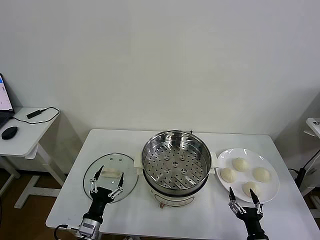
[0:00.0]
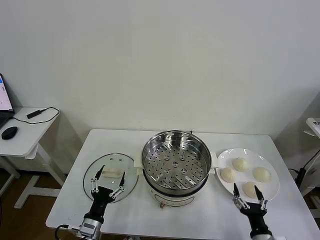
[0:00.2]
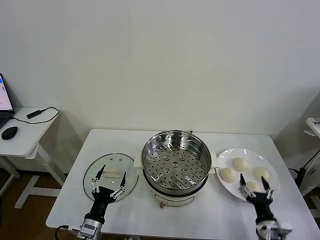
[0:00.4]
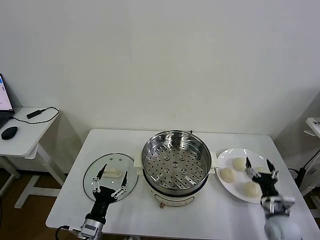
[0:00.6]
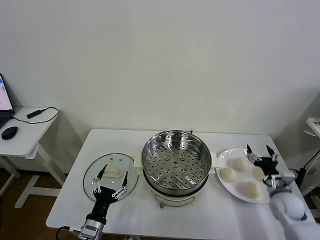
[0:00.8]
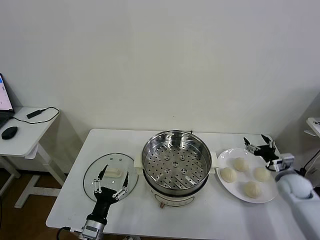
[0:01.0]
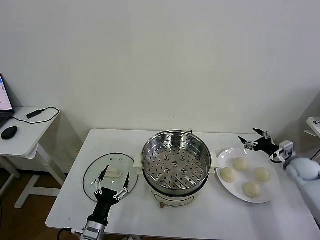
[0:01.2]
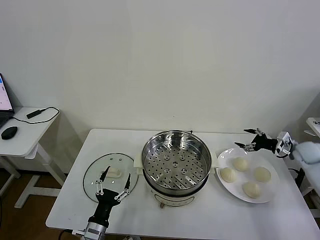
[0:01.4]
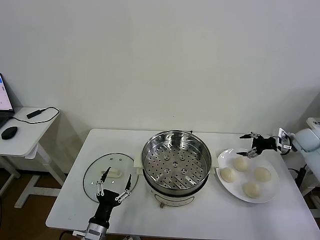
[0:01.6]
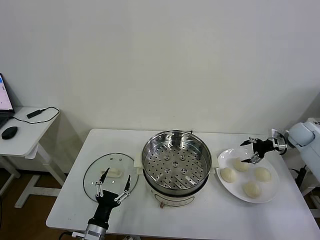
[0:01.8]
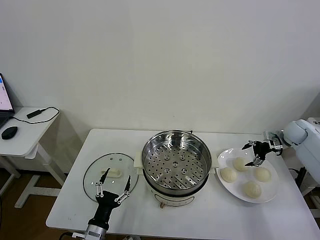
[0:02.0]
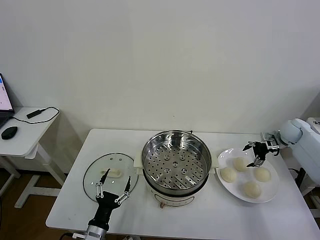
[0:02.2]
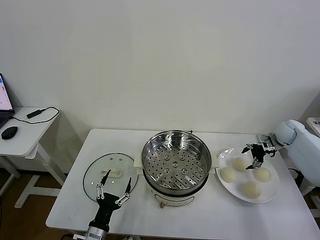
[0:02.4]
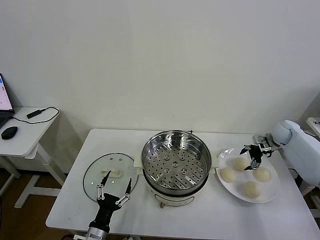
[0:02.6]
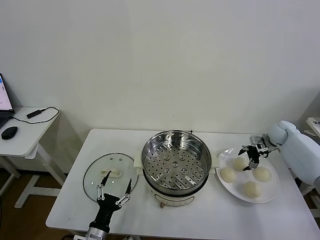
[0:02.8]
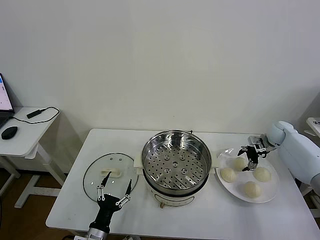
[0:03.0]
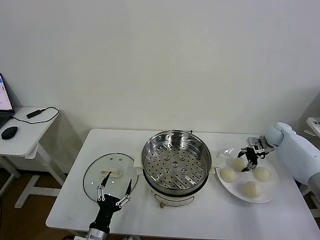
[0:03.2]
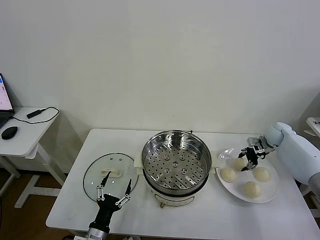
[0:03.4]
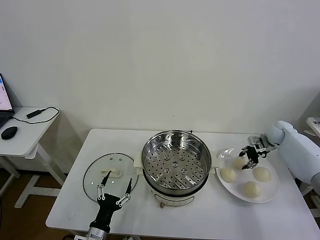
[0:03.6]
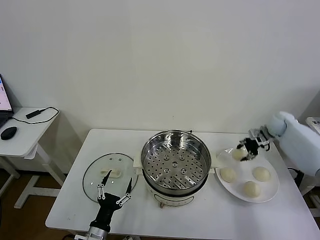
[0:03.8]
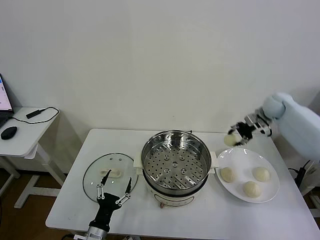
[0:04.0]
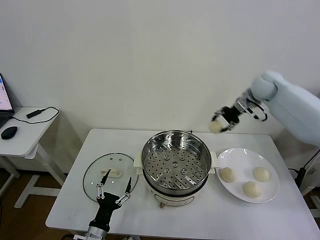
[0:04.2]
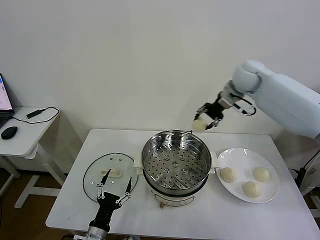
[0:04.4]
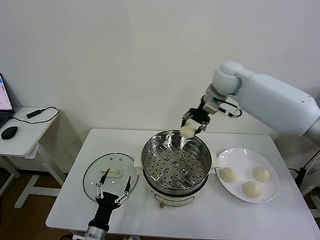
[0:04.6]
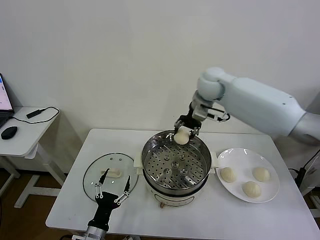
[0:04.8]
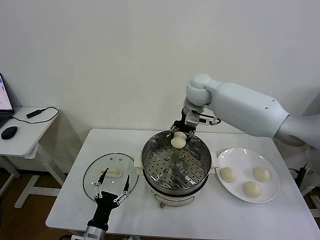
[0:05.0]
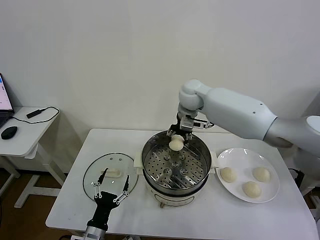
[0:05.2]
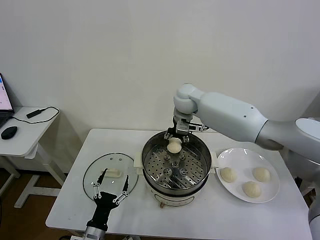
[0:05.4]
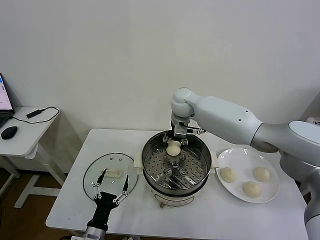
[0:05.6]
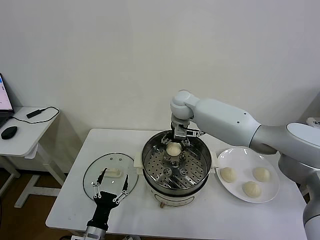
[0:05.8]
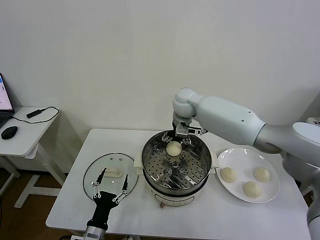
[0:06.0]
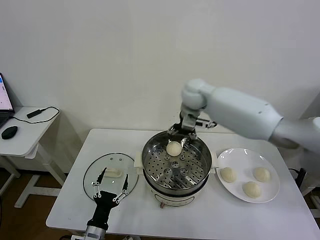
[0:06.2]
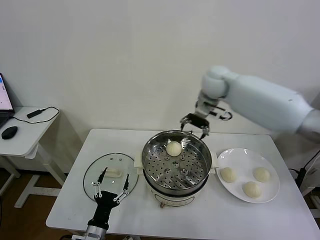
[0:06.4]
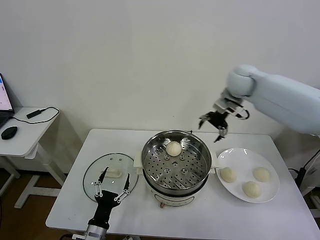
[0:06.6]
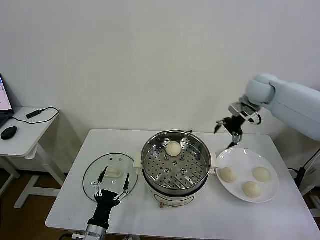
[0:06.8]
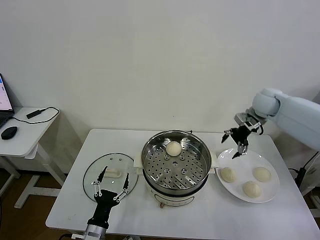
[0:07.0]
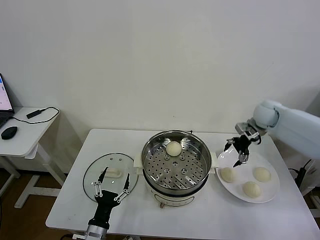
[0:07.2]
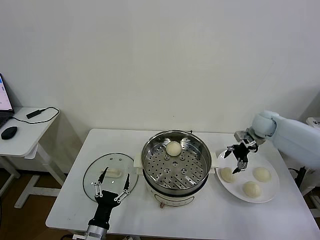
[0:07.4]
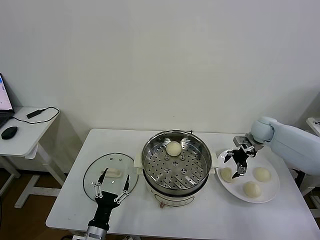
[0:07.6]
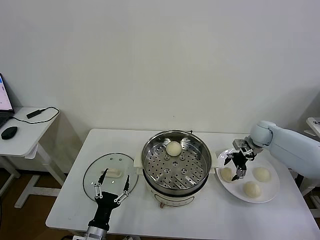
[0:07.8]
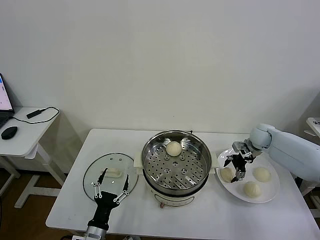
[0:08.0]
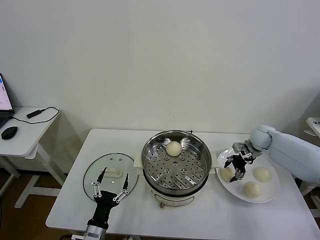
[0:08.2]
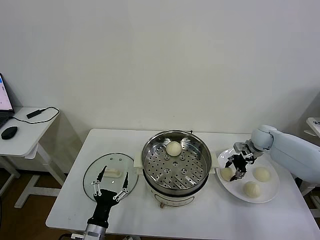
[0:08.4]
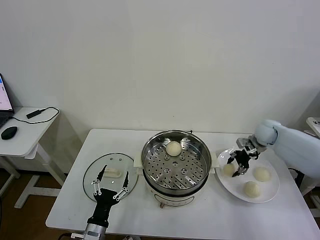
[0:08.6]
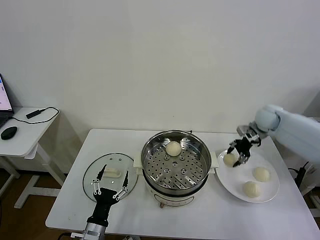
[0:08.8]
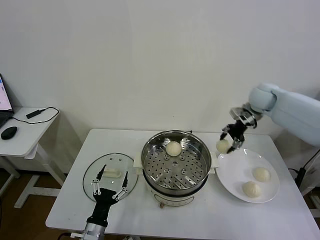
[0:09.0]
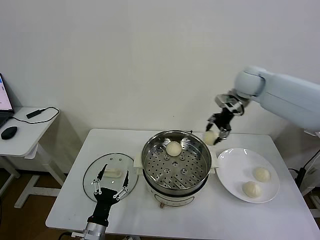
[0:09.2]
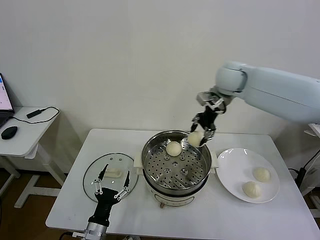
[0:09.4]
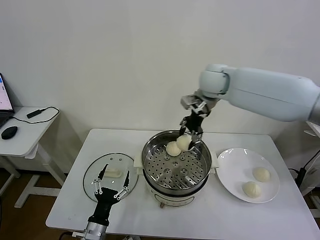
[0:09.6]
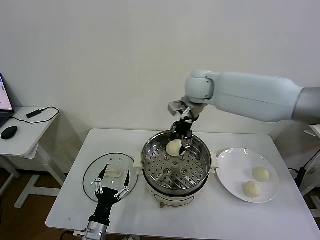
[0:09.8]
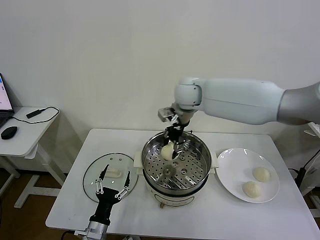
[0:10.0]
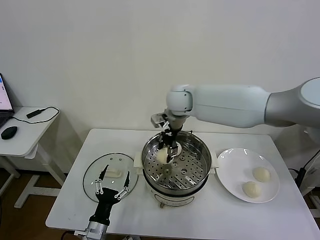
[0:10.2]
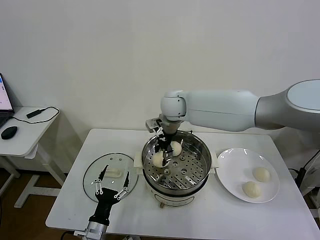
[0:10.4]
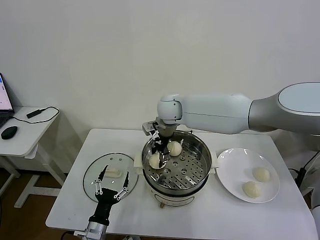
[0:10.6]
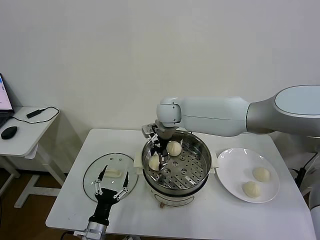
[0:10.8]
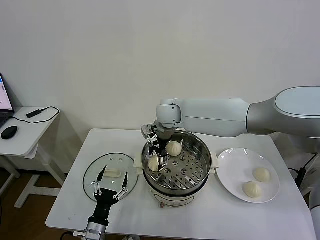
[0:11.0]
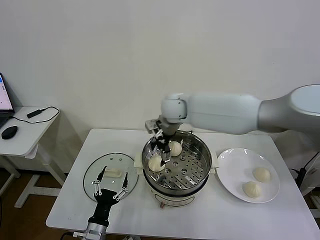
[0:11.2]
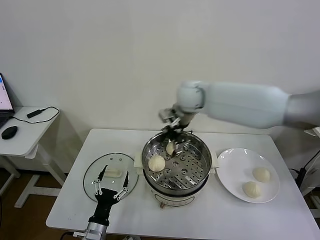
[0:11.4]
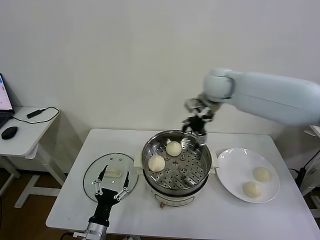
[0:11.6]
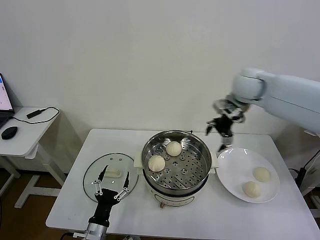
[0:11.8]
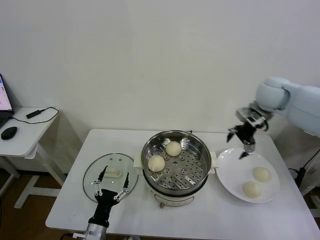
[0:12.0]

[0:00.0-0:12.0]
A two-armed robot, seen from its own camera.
Task of the whole recording: take steamed baozi put them in steamer then cover it.
Step, 0:00.0 to 0:03.4: Grasp the baozi in the plate with right gripper.
Step, 0:03.6 to 0:05.8: Place the baozi on the steamer with right gripper.
Step, 0:06.0 to 0:08.4: Grasp the baozi in the plate with right gripper.
Step, 0:08.6 to 0:10.8: Place the baozi on the steamer with right gripper.
0:01.6 to 0:03.0: The right gripper shifts about 10 cm to the left and forward.
0:03.0 to 0:04.4: The right gripper shifts about 35 cm upward and to the left, and closes its fingers.
0:04.4 to 0:06.0: The right gripper shifts roughly 15 cm to the left and downward, and opens up.
0:06.0 to 0:07.6: The right gripper moves to the right and downward, approximately 35 cm.
0:07.6 to 0:09.0: The right gripper heads upward and to the left, covering roughly 15 cm, and closes.
0:09.0 to 0:10.4: The right gripper goes about 30 cm to the left.
0:10.4 to 0:12.0: The right gripper heads to the right, covering some 30 cm, and opens up.

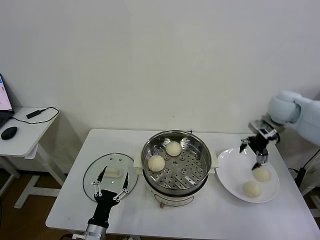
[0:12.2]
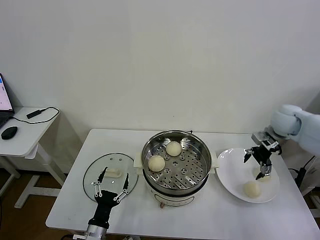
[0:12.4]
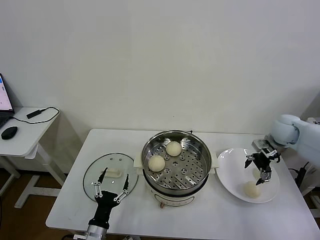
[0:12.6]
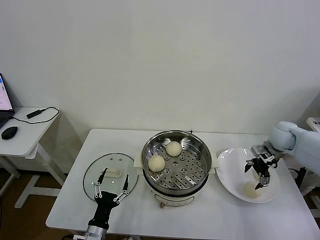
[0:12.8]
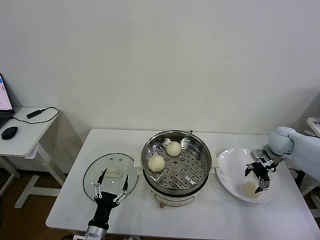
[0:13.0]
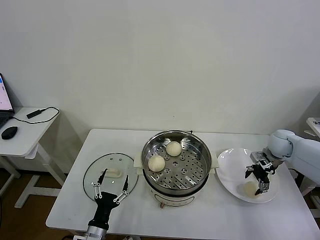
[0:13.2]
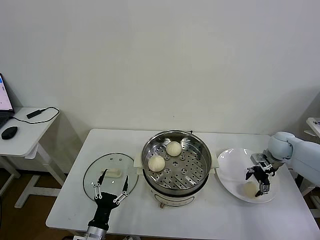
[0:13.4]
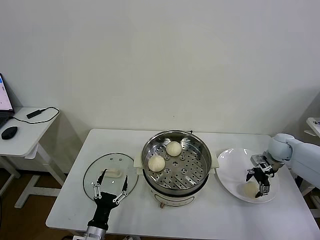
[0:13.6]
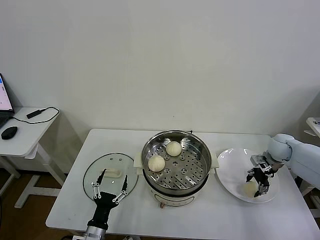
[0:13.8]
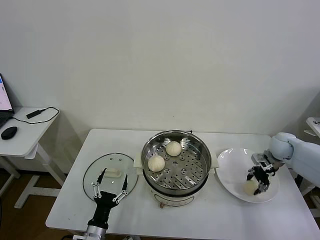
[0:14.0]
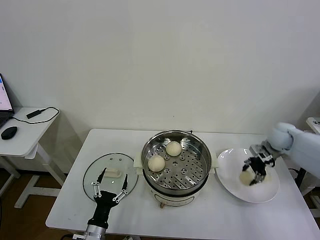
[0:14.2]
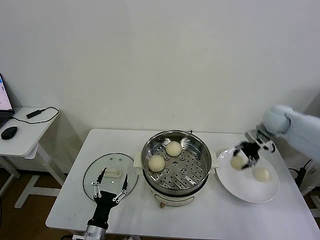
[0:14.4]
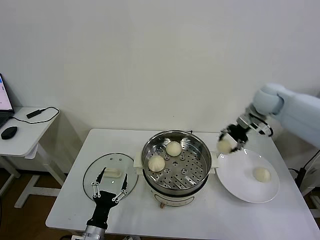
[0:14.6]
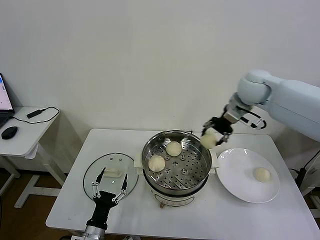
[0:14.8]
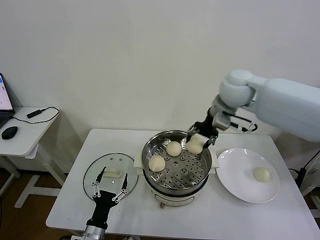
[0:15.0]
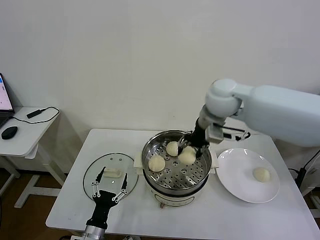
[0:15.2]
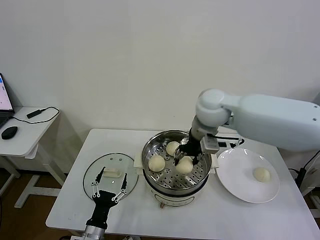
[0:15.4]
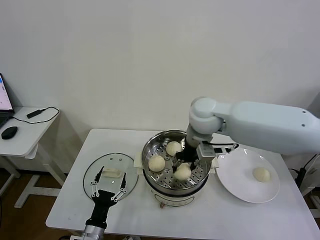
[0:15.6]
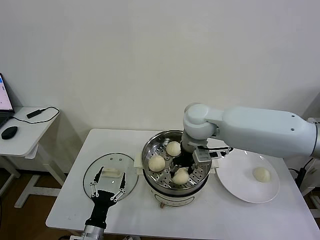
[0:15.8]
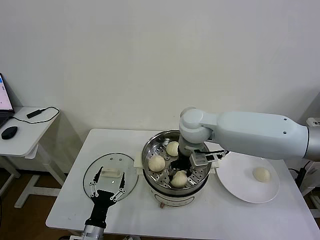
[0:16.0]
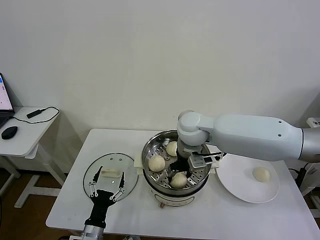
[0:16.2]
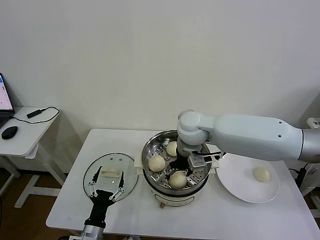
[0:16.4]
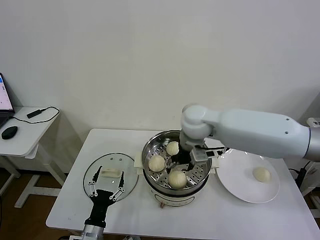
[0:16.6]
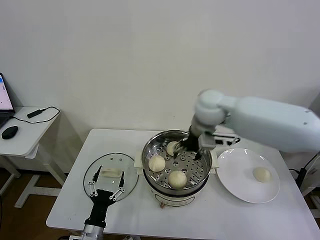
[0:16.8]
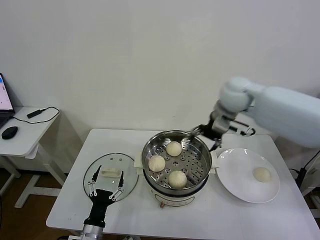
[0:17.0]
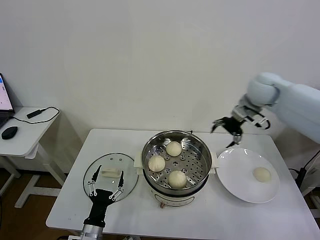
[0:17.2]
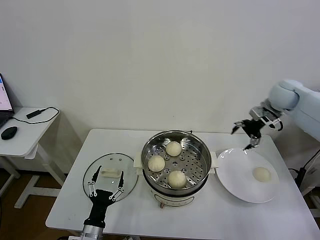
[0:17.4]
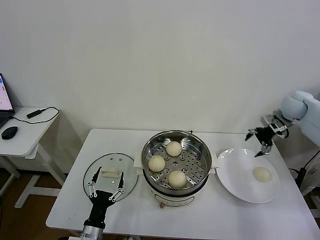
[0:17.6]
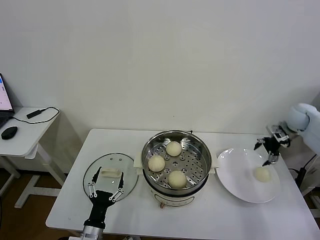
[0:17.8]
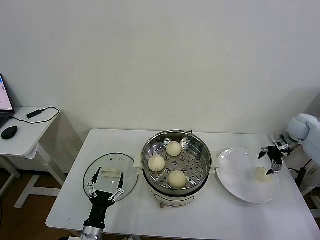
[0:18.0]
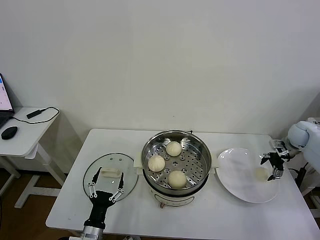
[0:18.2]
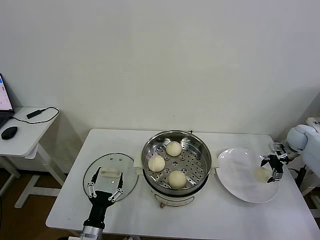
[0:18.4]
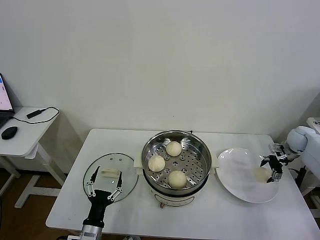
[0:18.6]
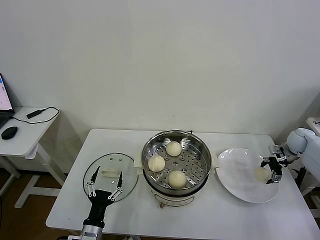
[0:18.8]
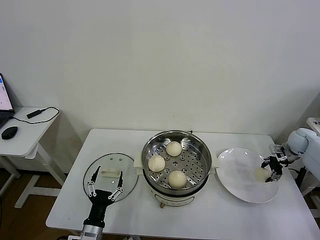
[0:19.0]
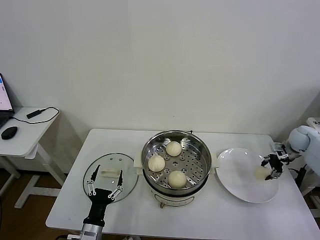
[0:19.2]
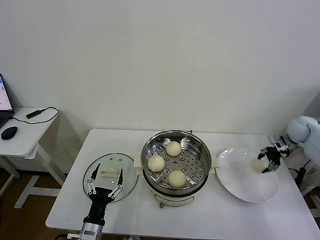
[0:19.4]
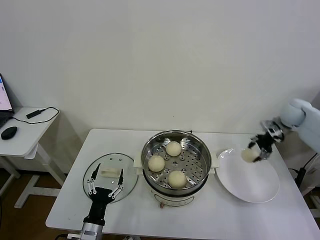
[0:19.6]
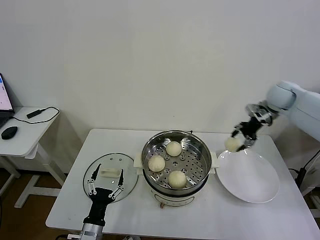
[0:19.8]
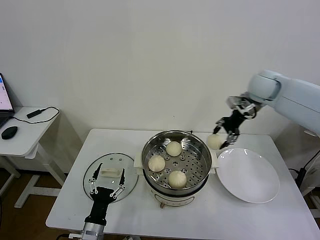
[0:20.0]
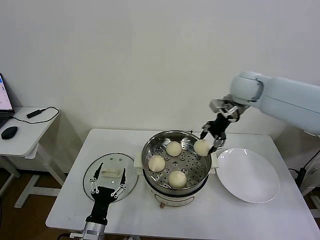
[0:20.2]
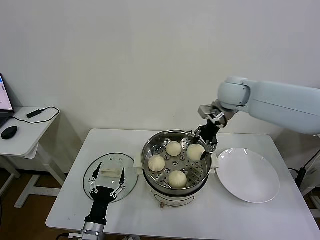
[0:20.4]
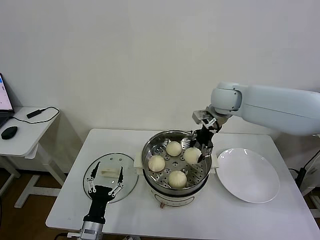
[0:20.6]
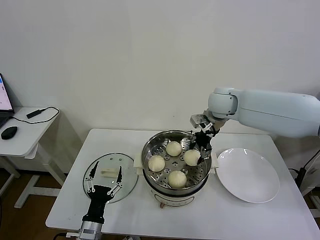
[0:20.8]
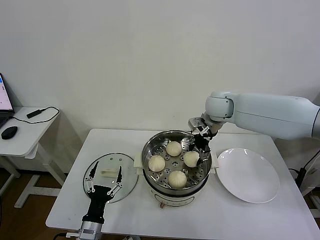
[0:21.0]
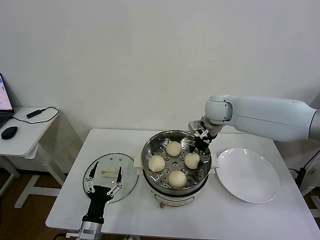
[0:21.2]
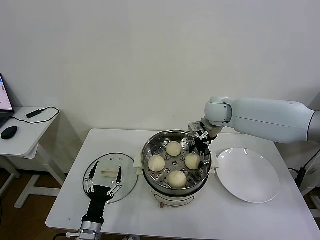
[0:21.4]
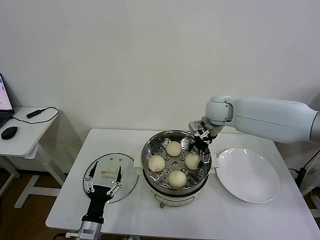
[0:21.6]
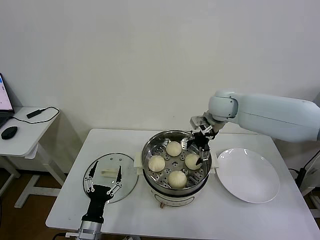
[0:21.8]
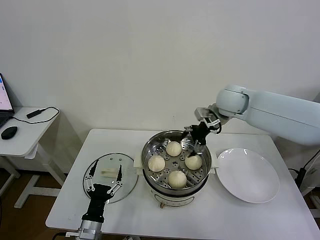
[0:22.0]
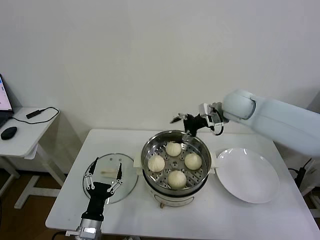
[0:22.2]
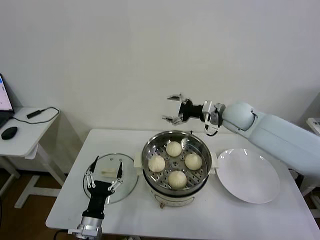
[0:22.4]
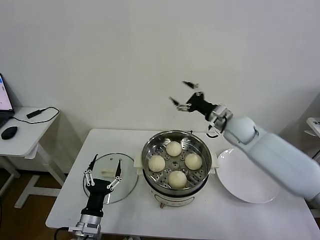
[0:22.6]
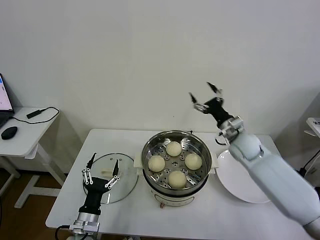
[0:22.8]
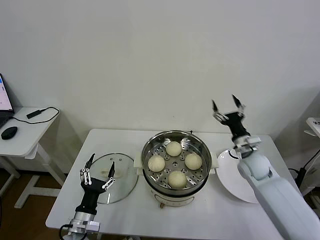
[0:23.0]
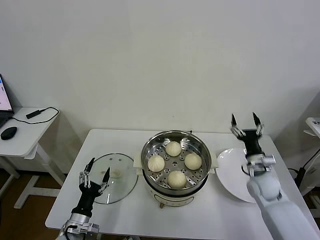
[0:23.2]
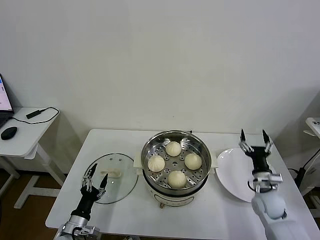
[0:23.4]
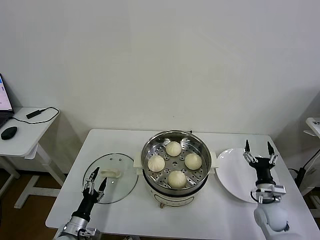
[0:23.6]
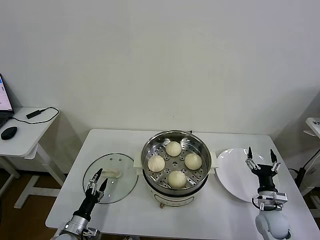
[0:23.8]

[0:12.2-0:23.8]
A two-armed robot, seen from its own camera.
Task of the whole recording: take steamed baozi put them in steamer then cover it.
Step, 0:12.2 to 0:14.0: Grasp the baozi in the plate with right gripper.
Step, 0:14.2 to 0:16.4: Place the baozi on the steamer with right gripper.
Step, 0:16.6 to 0:19.0: Grasp the baozi in the plate with right gripper.
Step, 0:19.4 to 0:21.4: Place the baozi on the steamer with right gripper.
0:12.2 to 0:13.6: The right gripper heads downward, covering roughly 15 cm.
0:13.6 to 0:15.0: The right gripper travels to the left and upward by some 35 cm, and closes.
0:15.0 to 0:16.6: The right gripper heads to the left and downward, covering about 10 cm, and opens.
0:16.6 to 0:18.0: The right gripper shifts about 40 cm to the right.
0:18.0 to 0:19.4: The right gripper closes up.
0:19.4 to 0:21.0: The right gripper is displaced to the left by some 35 cm.
0:21.0 to 0:22.4: The right gripper moves to the right, about 5 cm, and opens up.
0:22.4 to 0:23.8: The right gripper is displaced downward, backward and to the right by some 40 cm. Meanwhile the left gripper moves to the left and downward, some 15 cm.
